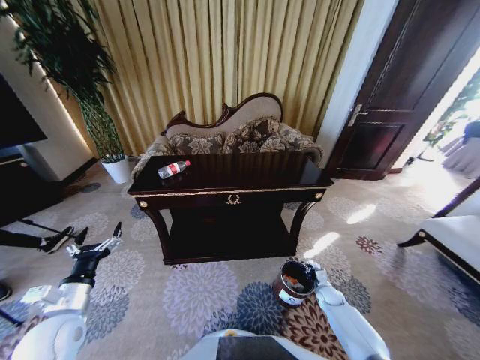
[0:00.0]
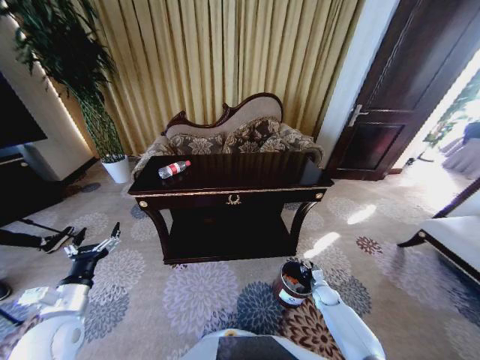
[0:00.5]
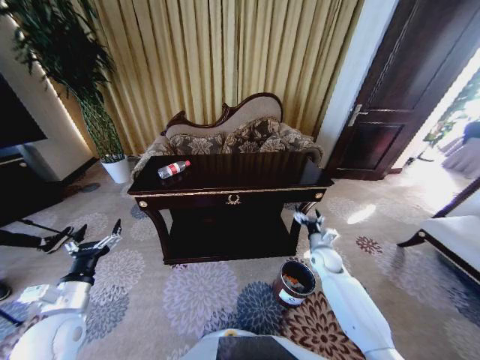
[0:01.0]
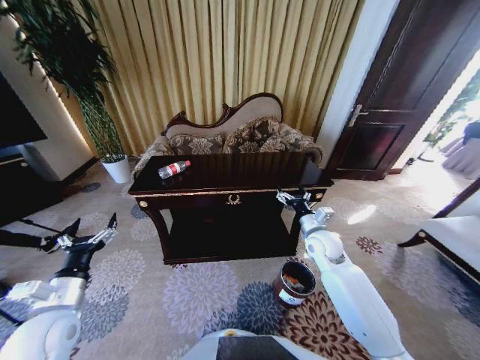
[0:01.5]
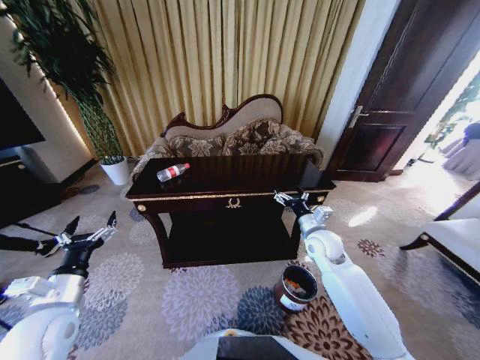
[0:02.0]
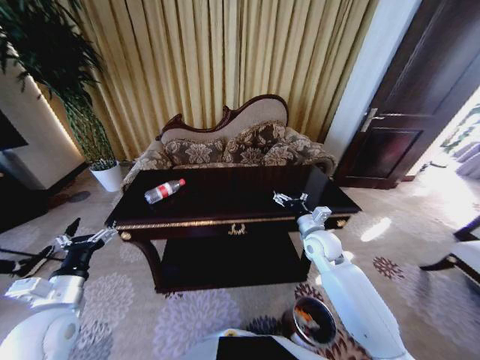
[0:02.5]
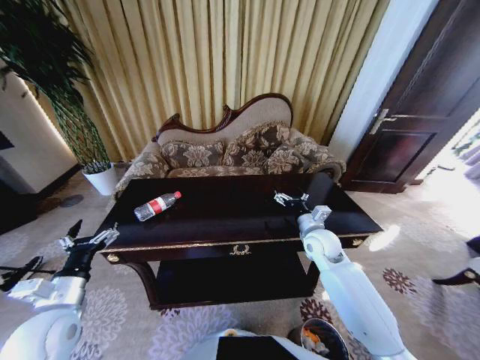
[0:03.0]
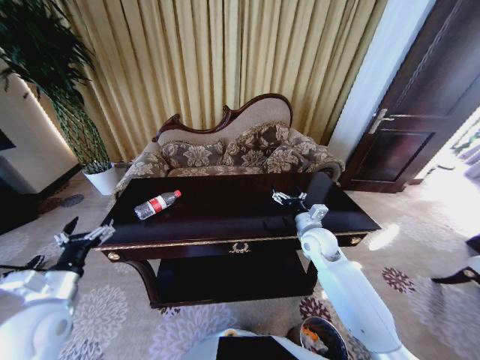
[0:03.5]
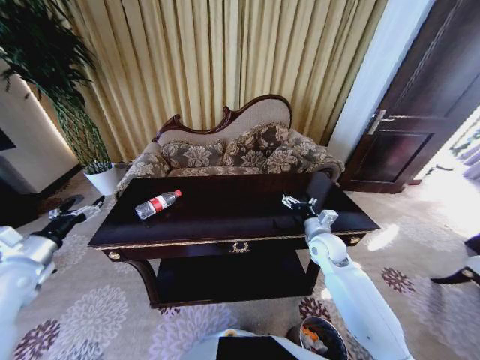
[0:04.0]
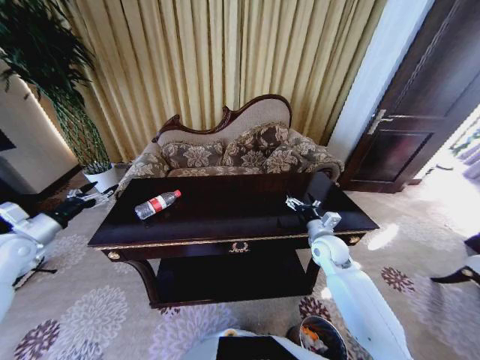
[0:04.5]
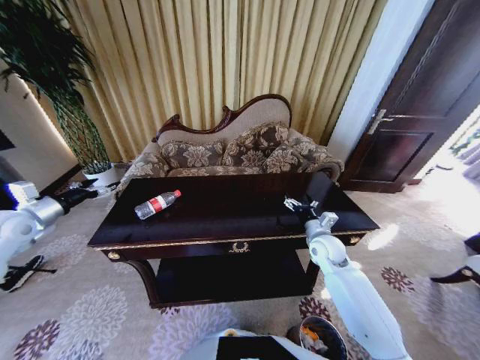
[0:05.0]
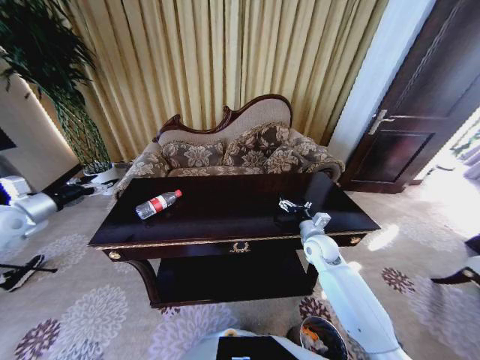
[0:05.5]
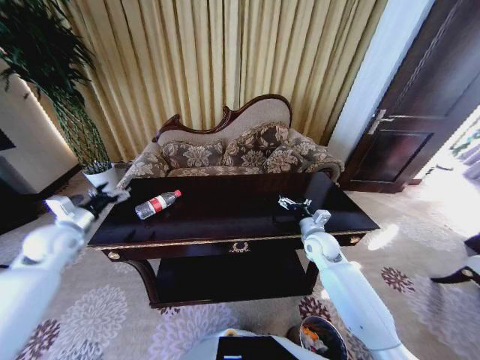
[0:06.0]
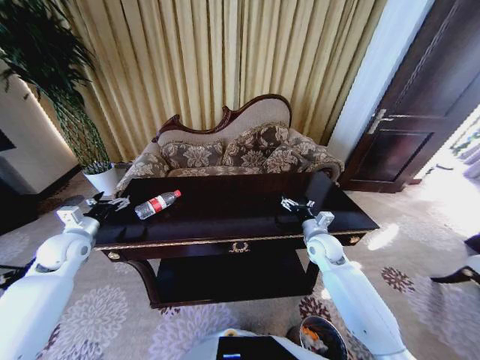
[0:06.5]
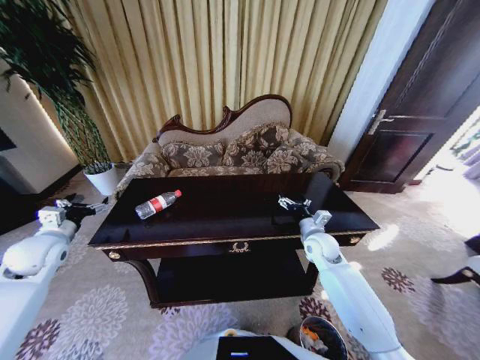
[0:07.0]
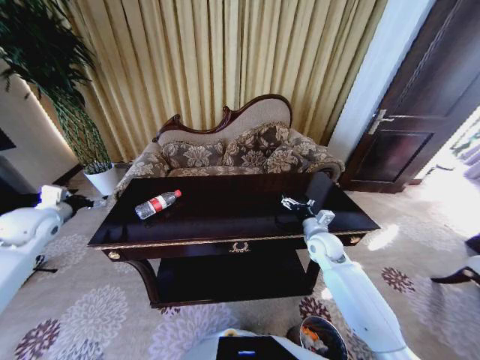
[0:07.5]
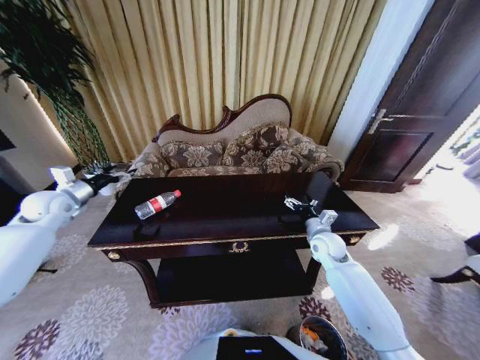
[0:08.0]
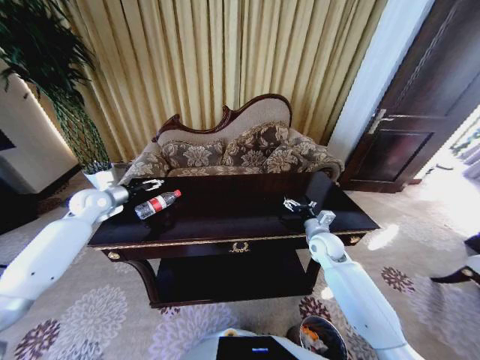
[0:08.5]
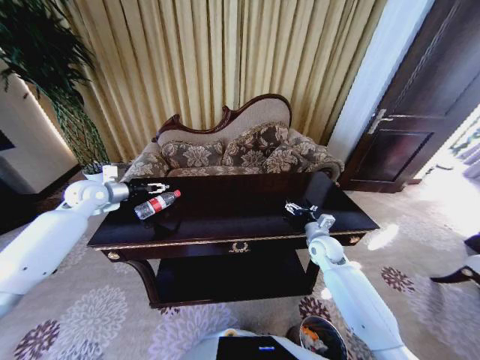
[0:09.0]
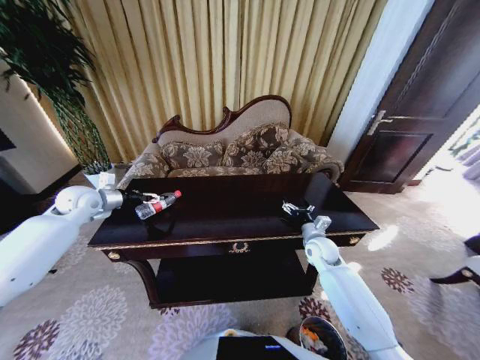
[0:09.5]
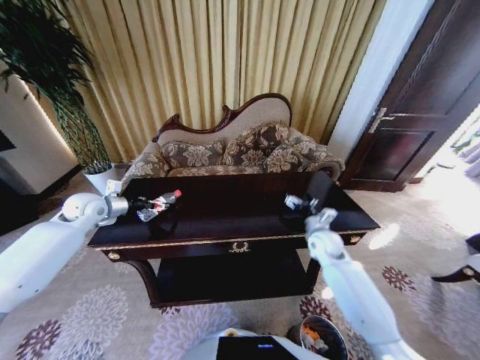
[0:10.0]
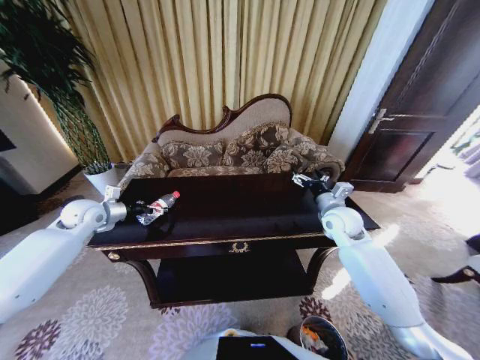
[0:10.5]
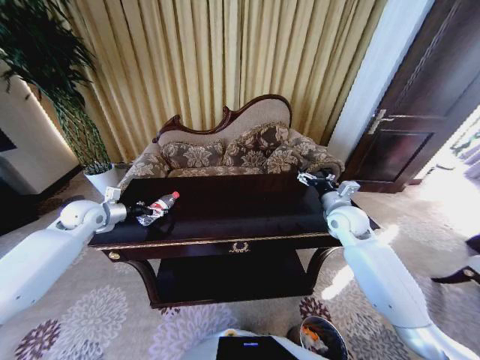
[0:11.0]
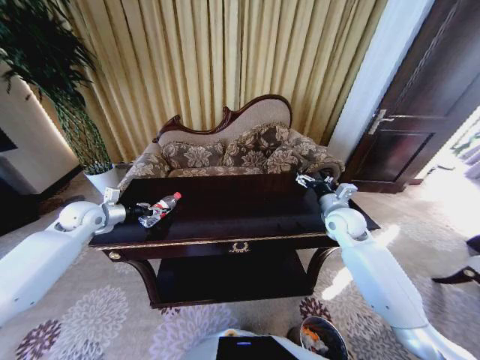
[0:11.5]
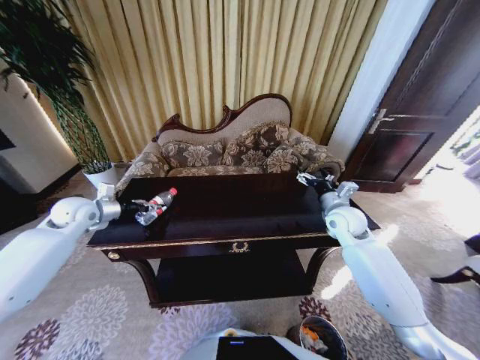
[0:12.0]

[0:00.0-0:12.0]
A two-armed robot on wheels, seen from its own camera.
Task of the whole recording: Move to the front of the table and place the trash on the table into the trash bin.
0:00.0 to 0:02.0: The right gripper travels upward and to the left by roughly 35 cm, and opens up.
0:02.0 to 0:04.0: The left gripper is displaced to the left and forward by roughly 15 cm.
0:04.0 to 0:06.0: The left gripper is displaced forward by some 10 cm.
0:06.0 to 0:08.0: The left gripper moves forward and upward, some 10 cm.
0:08.0 to 0:10.0: The left gripper travels to the right by about 5 cm.
0:10.0 to 0:12.0: The right gripper goes some 10 cm upward; the left gripper closes.

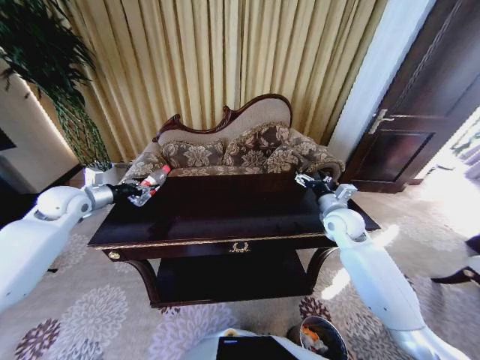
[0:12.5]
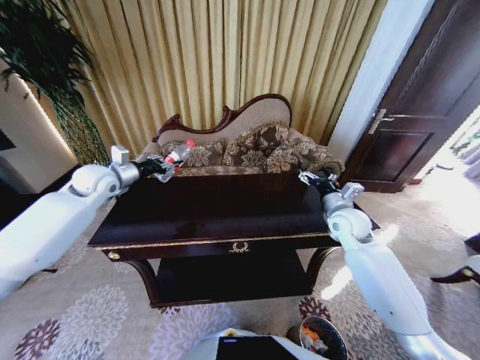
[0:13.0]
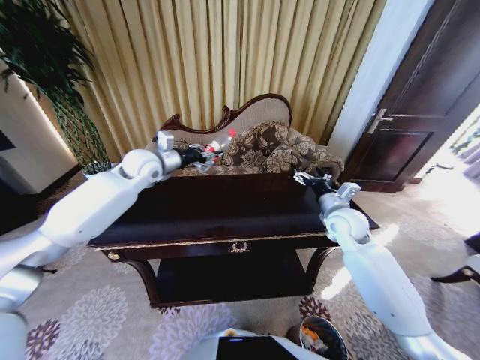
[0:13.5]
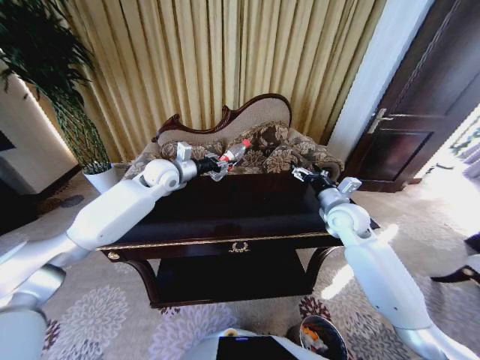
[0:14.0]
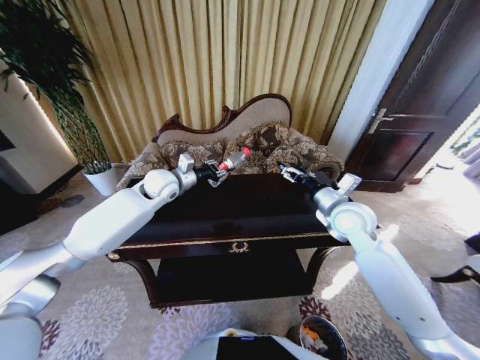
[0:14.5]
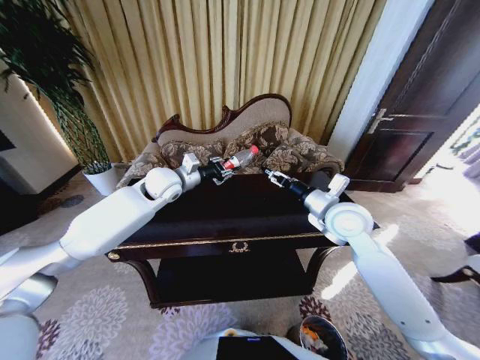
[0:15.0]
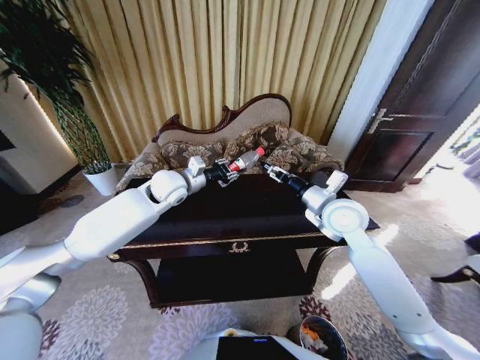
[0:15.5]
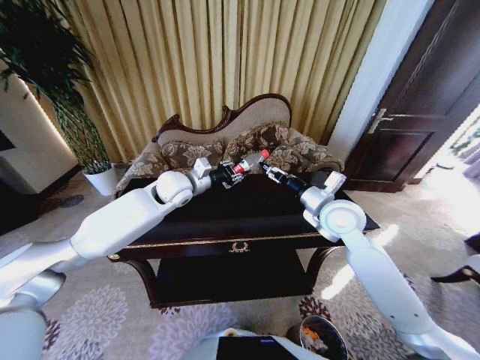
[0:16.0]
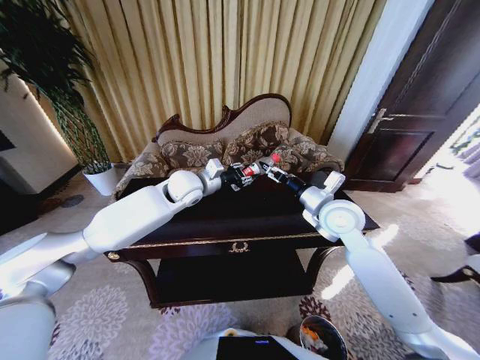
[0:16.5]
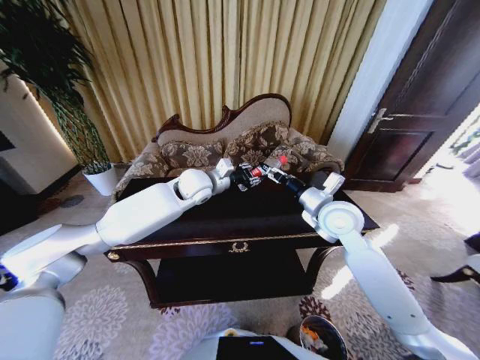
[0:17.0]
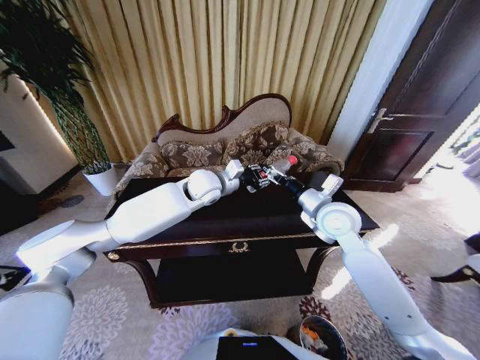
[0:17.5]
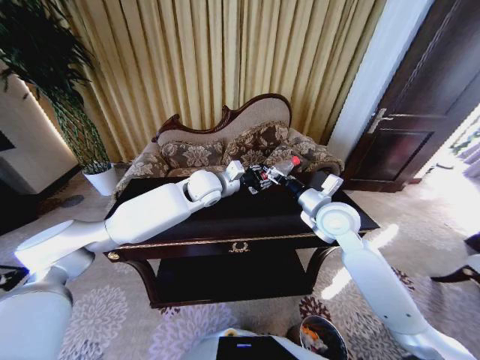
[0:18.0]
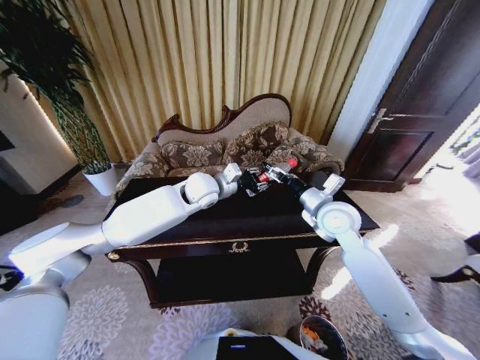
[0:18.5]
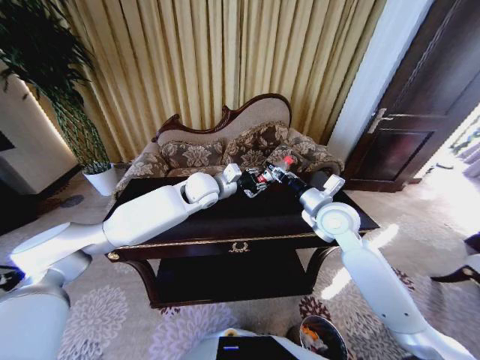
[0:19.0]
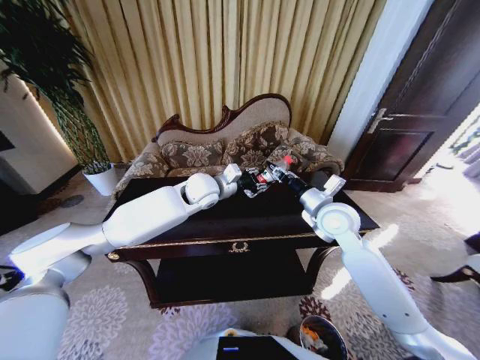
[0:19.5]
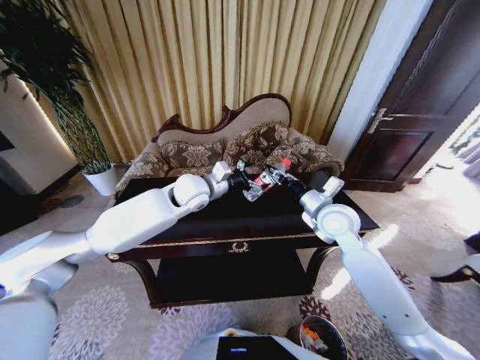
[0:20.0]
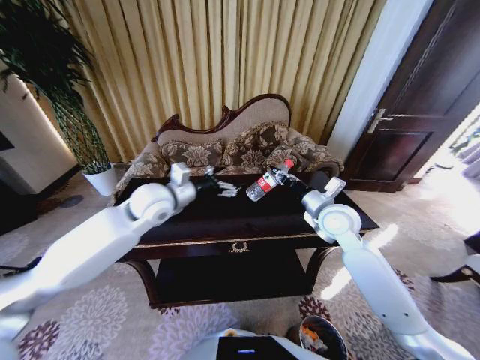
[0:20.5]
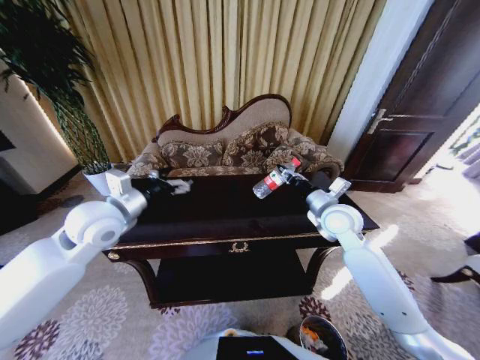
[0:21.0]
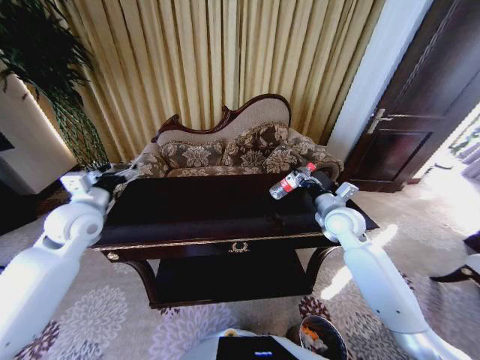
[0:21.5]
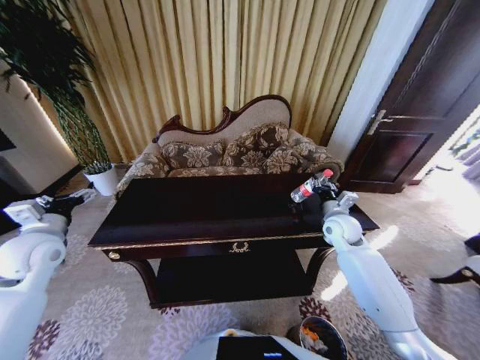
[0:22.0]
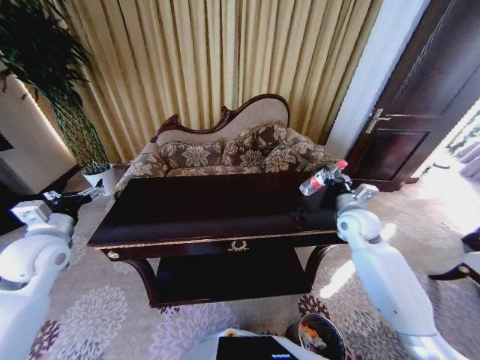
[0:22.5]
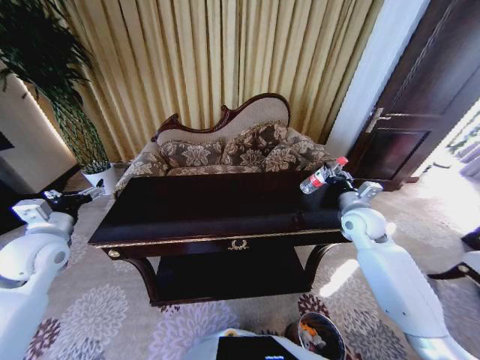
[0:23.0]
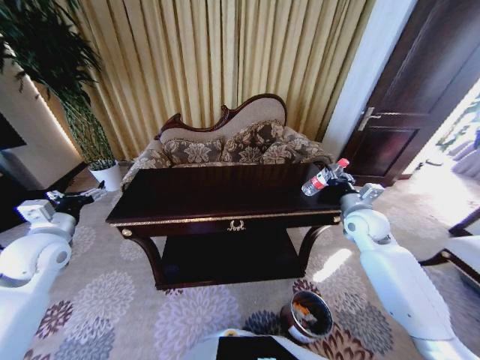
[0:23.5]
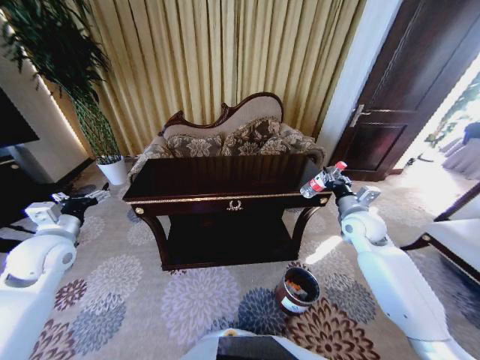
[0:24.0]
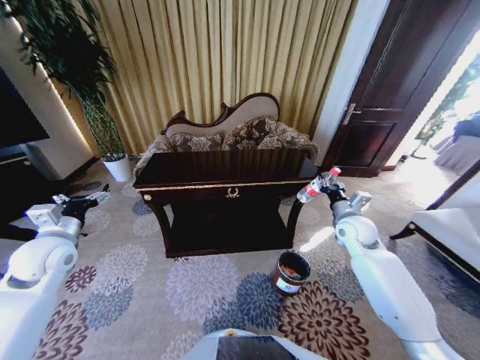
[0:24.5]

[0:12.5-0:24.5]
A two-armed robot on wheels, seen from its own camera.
Task of the whole recording: Move to the front of the table and place the trash on the table into the trash bin.
0:12.5 to 0:14.5: The left gripper is displaced to the right by some 25 cm; the right gripper heads upward, covering some 5 cm.
0:14.5 to 0:16.5: The left gripper heads to the right, covering about 10 cm.
0:16.5 to 0:18.5: The grippers stay close to where they were, moving slightly.
0:18.5 to 0:20.5: The right gripper closes. The left gripper is displaced to the left and backward by approximately 15 cm, and opens its fingers.
0:20.5 to 0:22.5: The left gripper goes approximately 25 cm to the left and backward; the right gripper shifts approximately 10 cm to the right.

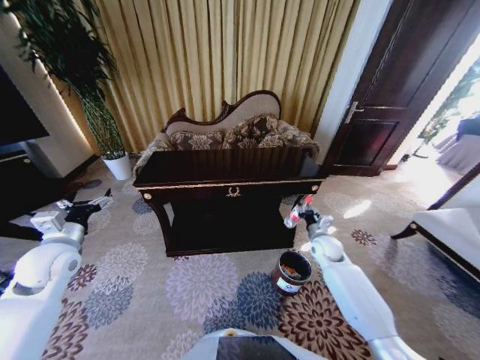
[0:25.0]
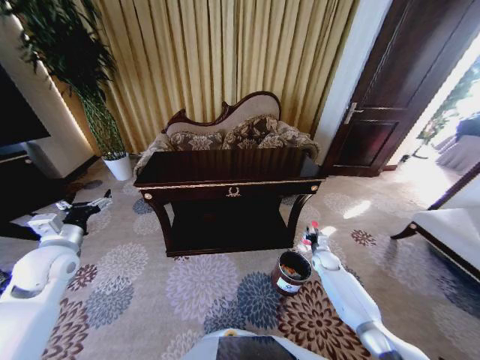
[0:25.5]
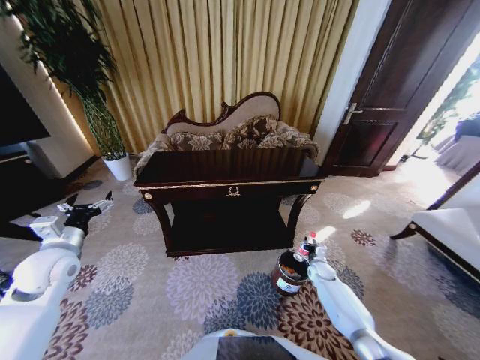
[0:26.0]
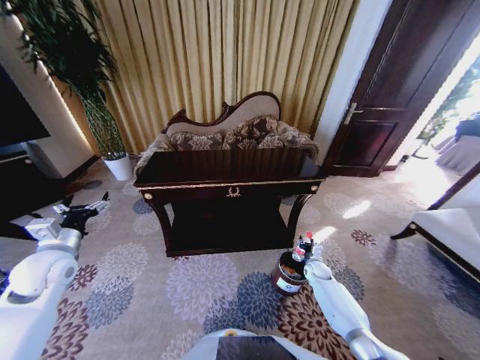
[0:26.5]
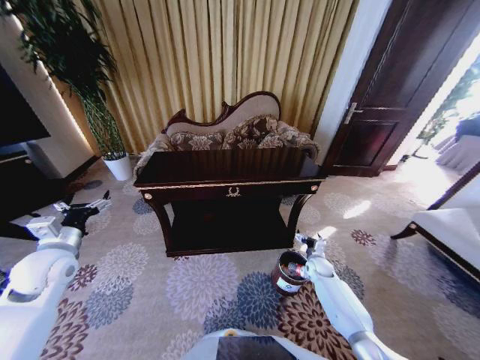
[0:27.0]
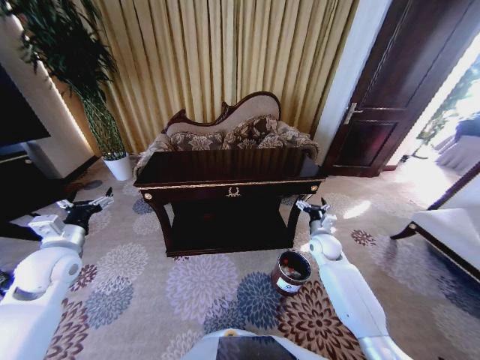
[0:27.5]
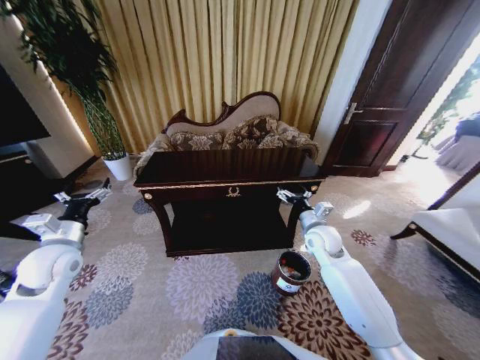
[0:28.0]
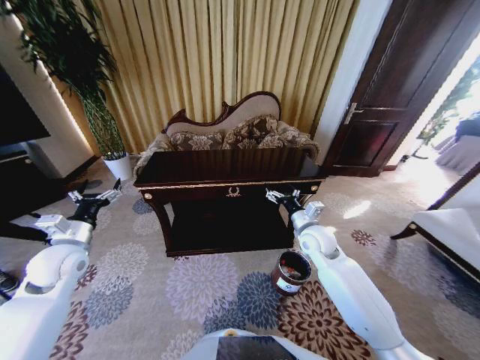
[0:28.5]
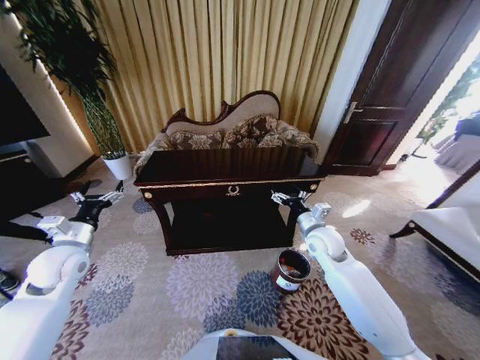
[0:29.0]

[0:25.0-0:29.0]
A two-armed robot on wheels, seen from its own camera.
Task of the whole recording: Move to the front of the table and place the trash on the table into the trash bin.
0:25.0 to 0:27.0: The right gripper travels downward by roughly 15 cm, and opens its fingers.
0:27.0 to 0:29.0: The right gripper goes some 25 cm upward and to the left.
